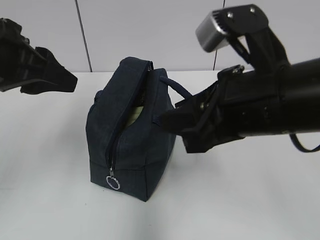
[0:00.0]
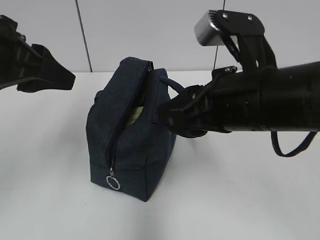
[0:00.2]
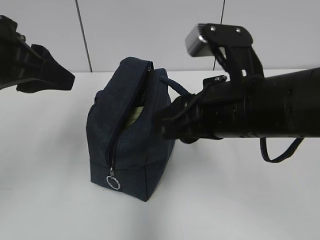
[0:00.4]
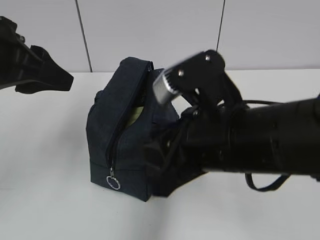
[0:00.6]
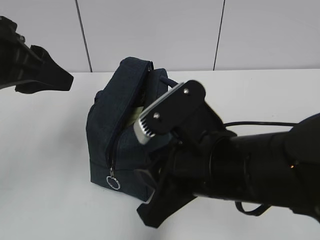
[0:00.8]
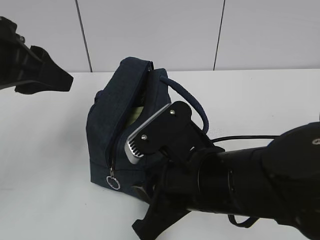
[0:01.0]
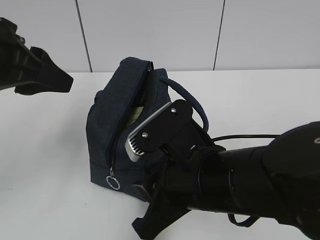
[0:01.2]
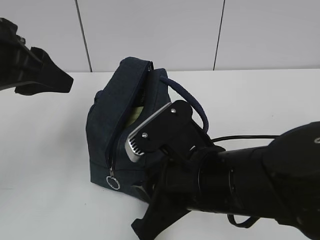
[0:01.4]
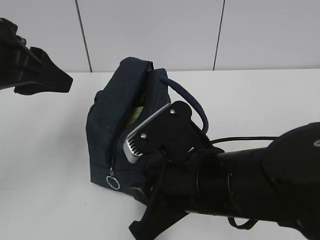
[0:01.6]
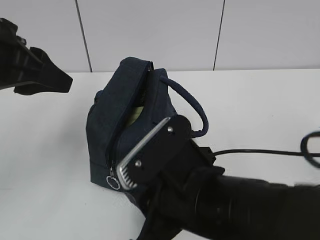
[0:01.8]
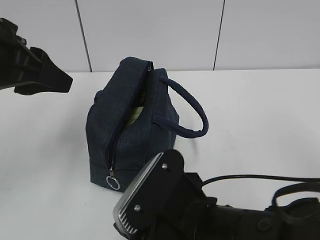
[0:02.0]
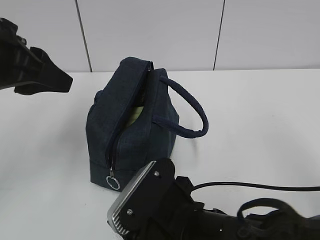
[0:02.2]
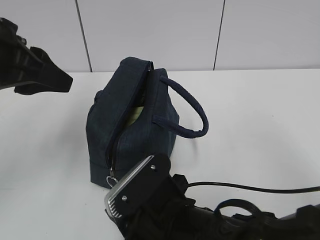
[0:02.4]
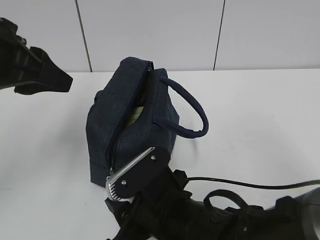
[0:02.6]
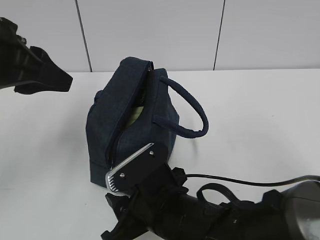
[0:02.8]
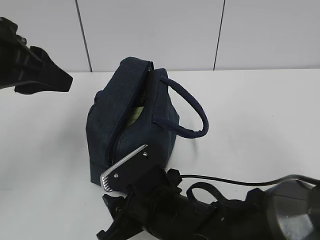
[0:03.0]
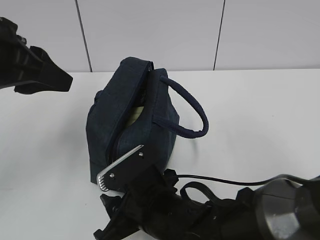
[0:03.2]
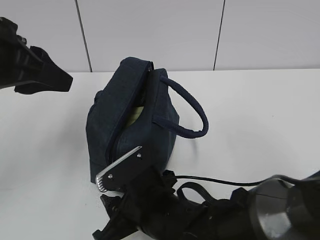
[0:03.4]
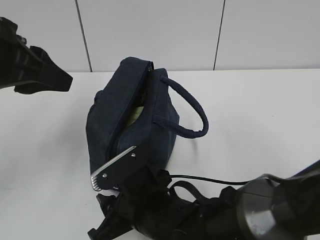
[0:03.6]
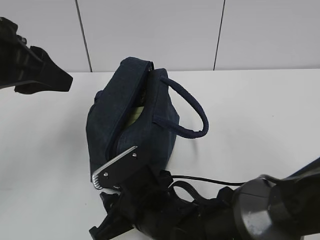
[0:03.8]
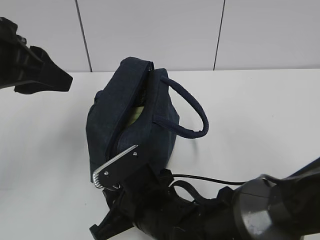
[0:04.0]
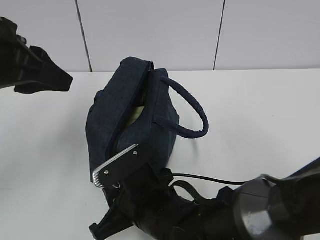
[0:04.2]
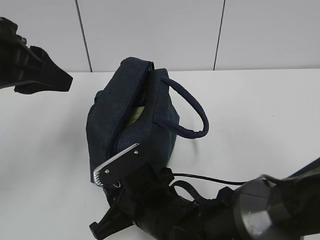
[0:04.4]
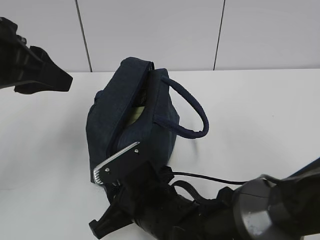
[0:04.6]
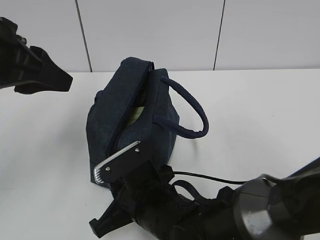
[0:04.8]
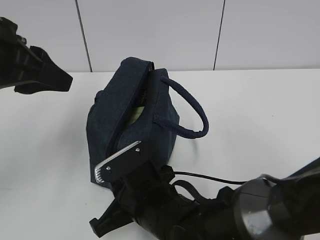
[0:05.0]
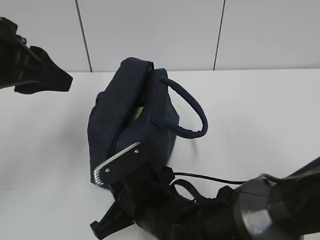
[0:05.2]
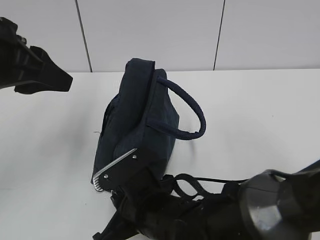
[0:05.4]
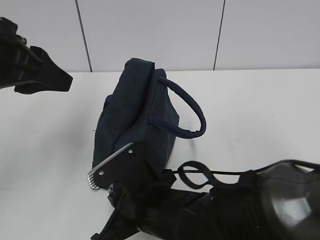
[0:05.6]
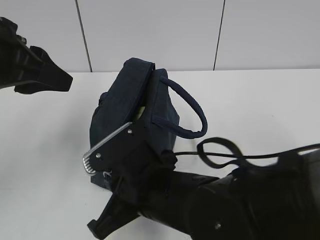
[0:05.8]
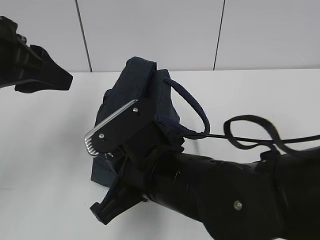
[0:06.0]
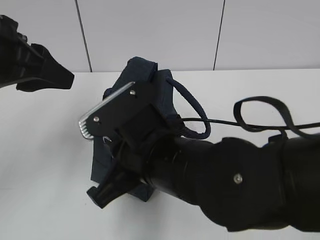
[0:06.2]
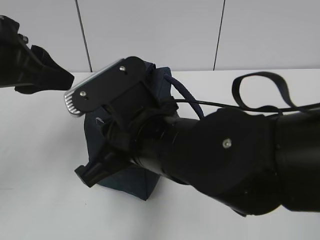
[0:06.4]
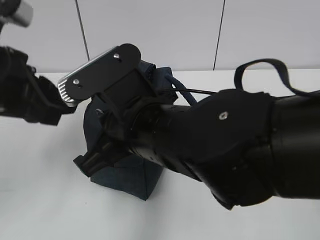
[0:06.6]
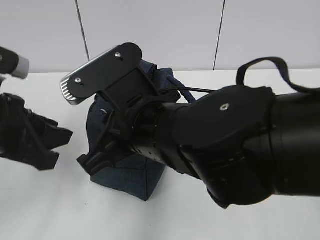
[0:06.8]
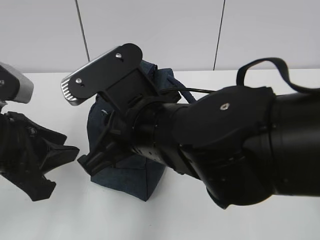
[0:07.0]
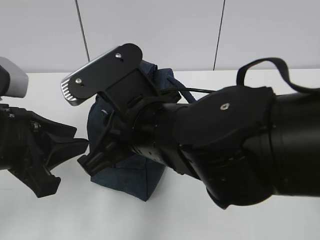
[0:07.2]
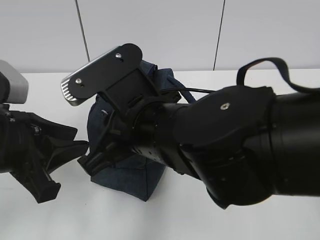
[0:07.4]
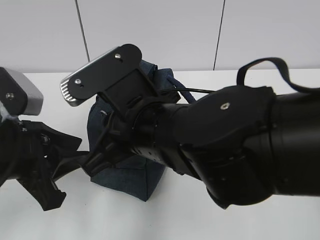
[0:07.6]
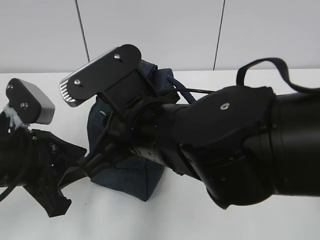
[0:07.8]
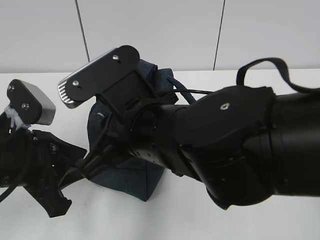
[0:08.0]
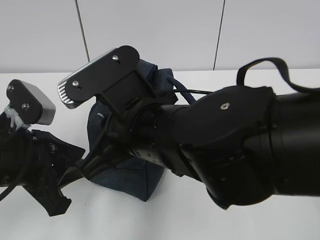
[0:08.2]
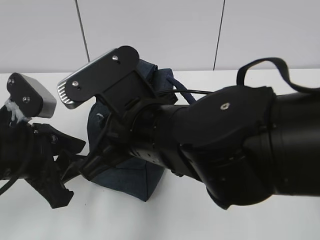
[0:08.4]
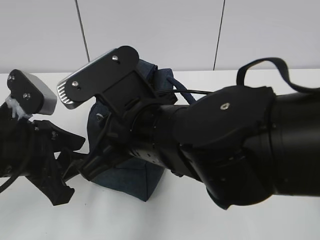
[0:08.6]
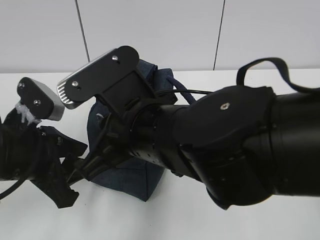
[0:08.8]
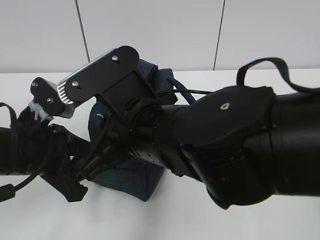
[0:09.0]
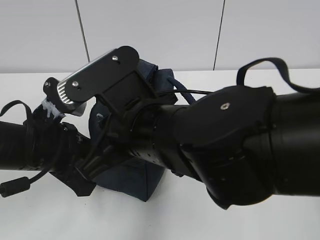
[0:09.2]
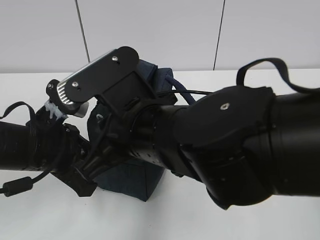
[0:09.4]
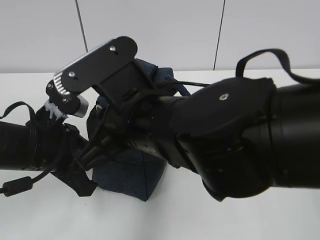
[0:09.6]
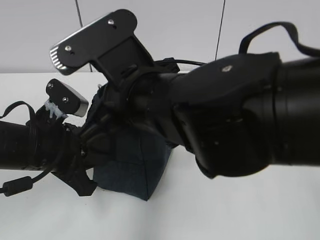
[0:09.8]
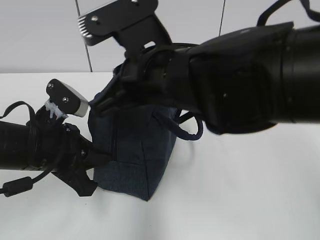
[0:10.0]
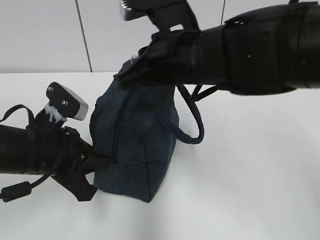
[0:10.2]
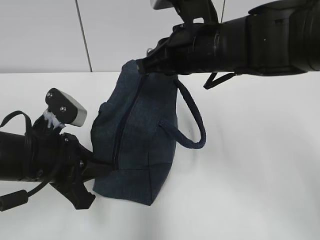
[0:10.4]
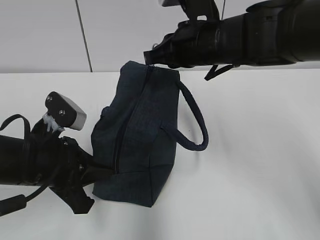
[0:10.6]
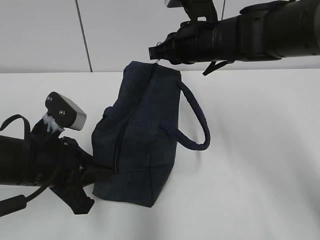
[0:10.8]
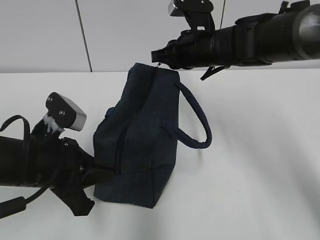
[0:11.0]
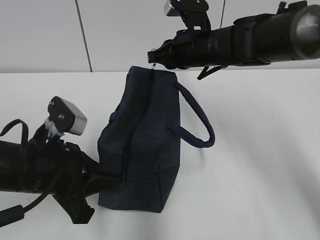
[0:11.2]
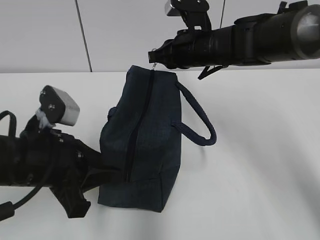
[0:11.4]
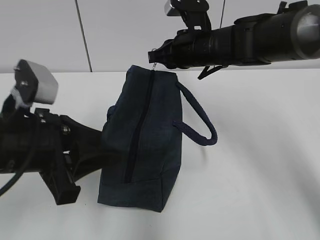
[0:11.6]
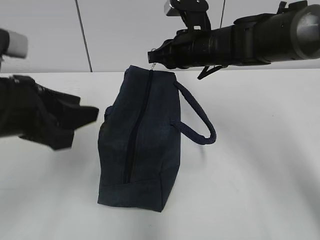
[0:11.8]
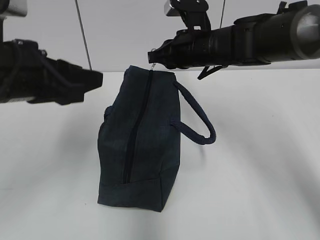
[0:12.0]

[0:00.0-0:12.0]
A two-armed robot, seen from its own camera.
0:00.0 to 0:01.6: The right gripper is displaced downward and to the left by approximately 10 cm.
0:01.6 to 0:03.0: The right gripper heads downward, covering some 10 cm.
0:03.0 to 0:04.4: The grippers make only small movements.
0:04.4 to 0:06.0: The right gripper moves upward, about 10 cm, and closes its fingers.
0:06.0 to 0:07.6: The right gripper shifts by about 5 cm, while the left gripper is displaced downward by approximately 10 cm.
0:07.6 to 0:09.0: The grippers stay close to where they were, moving slightly.
0:09.0 to 0:10.4: The right gripper goes roughly 15 cm forward and to the right. Meanwhile the left gripper closes up.
0:10.4 to 0:12.0: The right gripper heads forward, covering approximately 10 cm. Meanwhile the left gripper travels upward by about 10 cm, and opens.

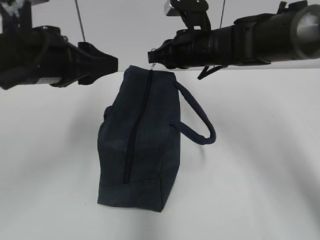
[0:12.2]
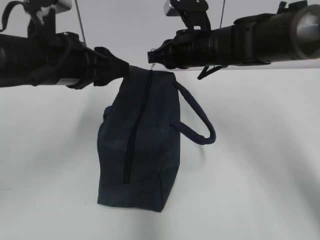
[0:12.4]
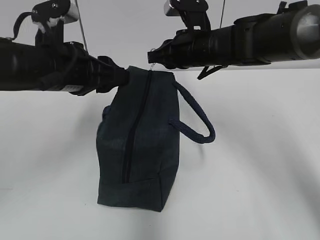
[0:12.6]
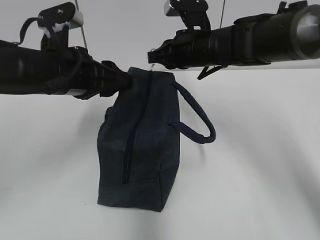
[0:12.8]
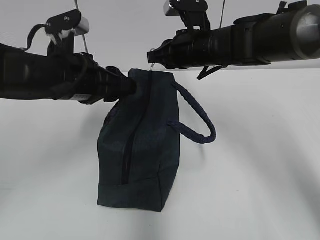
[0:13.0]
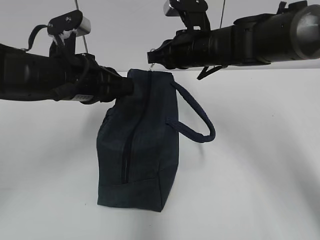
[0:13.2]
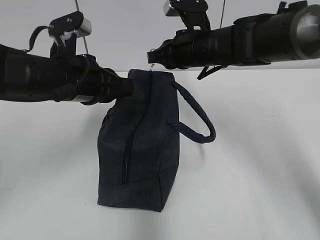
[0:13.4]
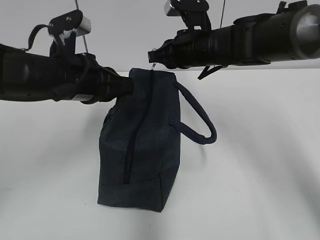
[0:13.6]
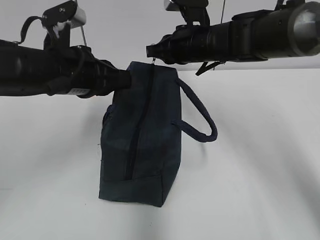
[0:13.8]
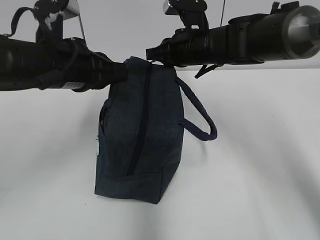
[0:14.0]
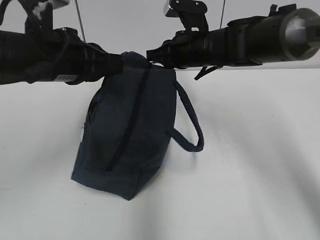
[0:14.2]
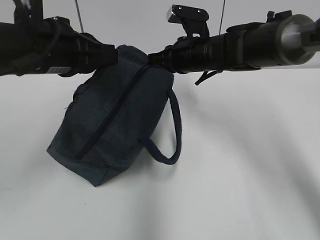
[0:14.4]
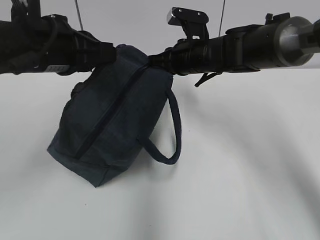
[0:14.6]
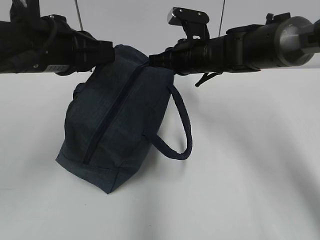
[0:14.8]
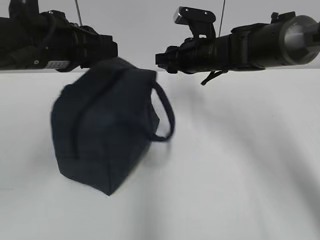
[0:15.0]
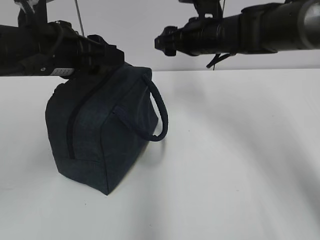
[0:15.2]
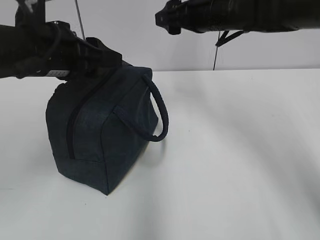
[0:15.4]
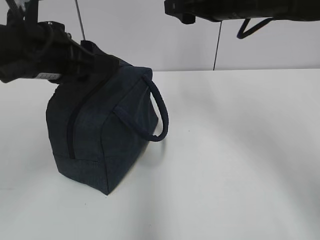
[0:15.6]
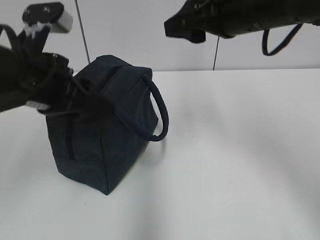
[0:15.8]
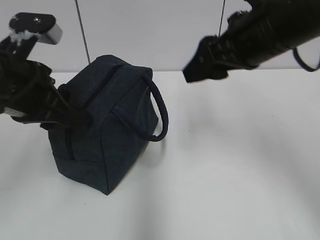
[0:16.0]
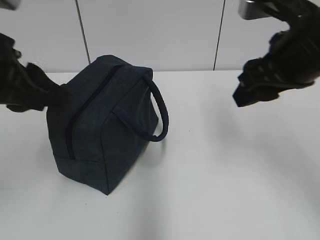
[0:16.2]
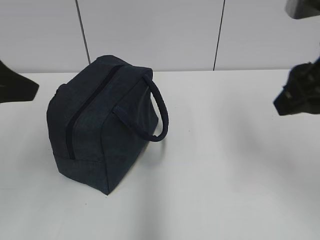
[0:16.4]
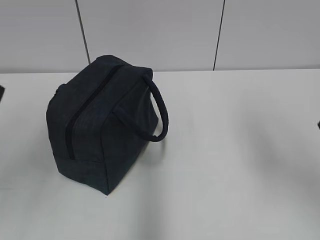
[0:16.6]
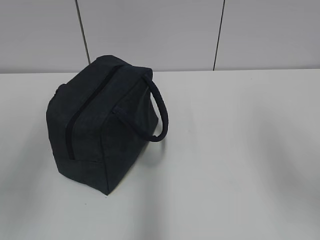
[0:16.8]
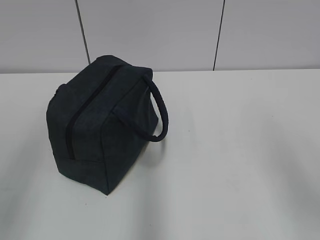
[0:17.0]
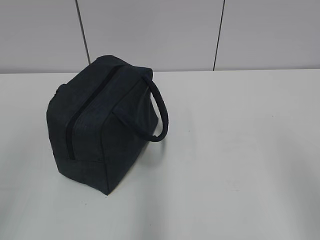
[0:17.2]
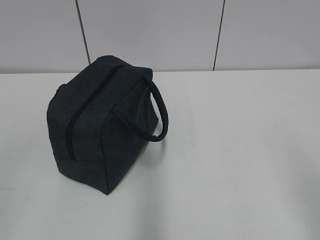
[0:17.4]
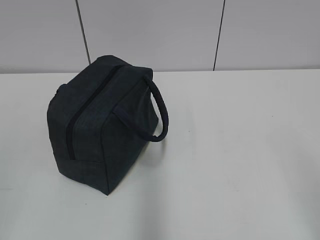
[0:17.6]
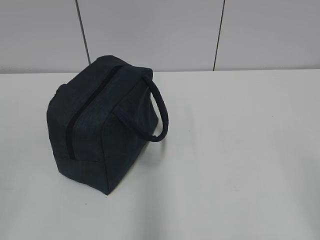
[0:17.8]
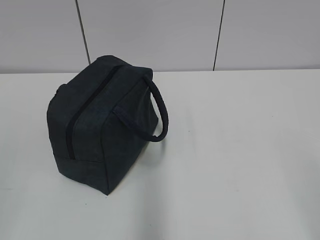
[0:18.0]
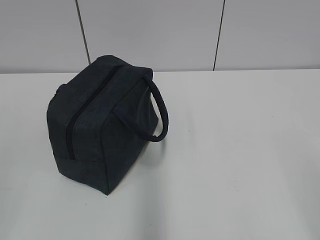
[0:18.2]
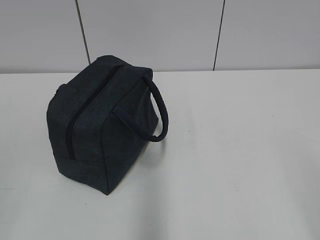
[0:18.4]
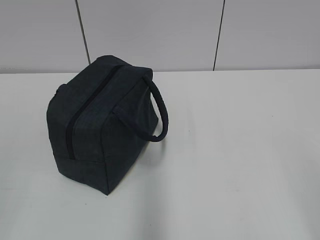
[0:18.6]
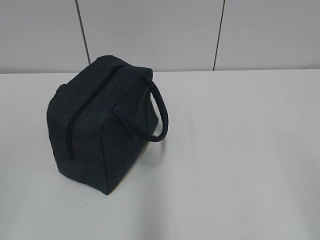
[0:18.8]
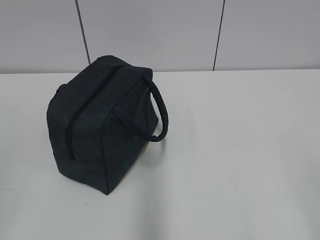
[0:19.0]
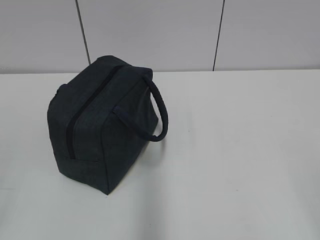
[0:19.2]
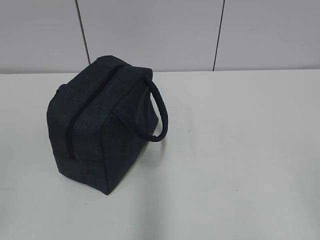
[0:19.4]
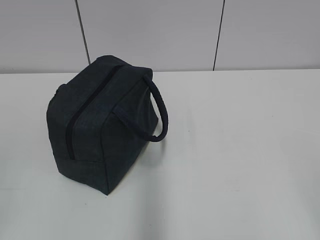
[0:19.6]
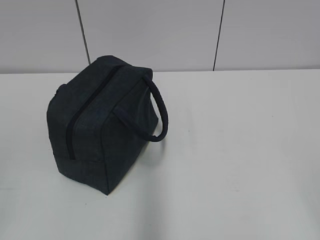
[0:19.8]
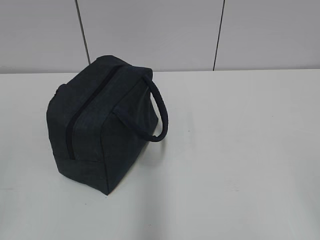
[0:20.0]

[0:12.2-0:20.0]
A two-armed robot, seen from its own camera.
0:12.2 to 0:13.8: The left gripper closes its fingers.
0:13.8 to 0:15.4: The right gripper moves upward, some 5 cm, and opens. Meanwhile the left gripper opens up.
0:15.4 to 0:16.8: The right gripper travels backward and to the right by about 30 cm, while the left gripper travels backward and to the left by some 20 cm.
0:16.8 to 0:18.4: The left gripper heads backward, downward and to the left, covering approximately 15 cm; the right gripper travels backward by some 15 cm.

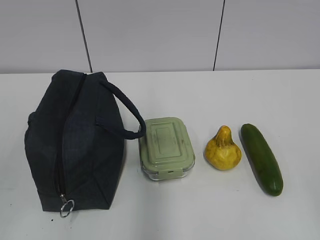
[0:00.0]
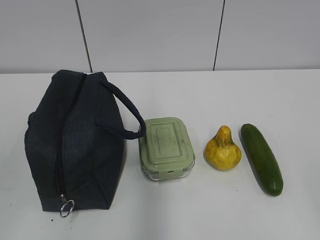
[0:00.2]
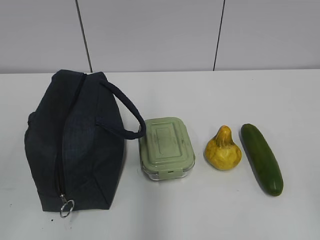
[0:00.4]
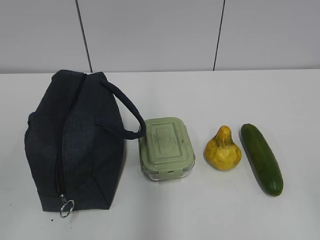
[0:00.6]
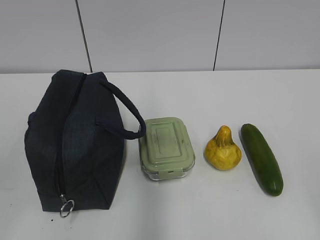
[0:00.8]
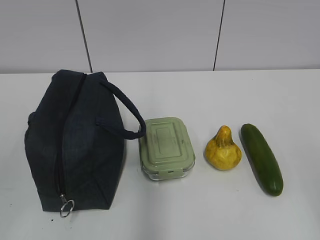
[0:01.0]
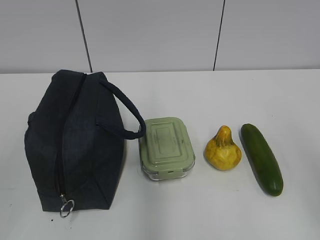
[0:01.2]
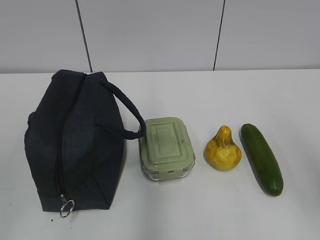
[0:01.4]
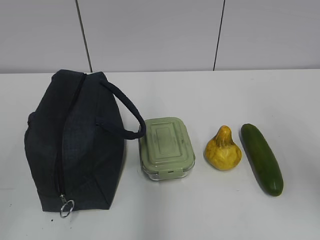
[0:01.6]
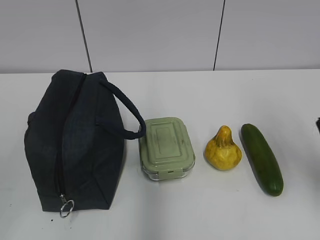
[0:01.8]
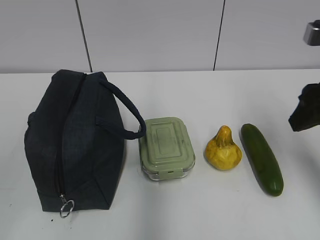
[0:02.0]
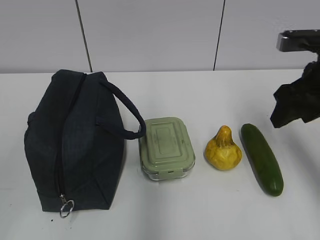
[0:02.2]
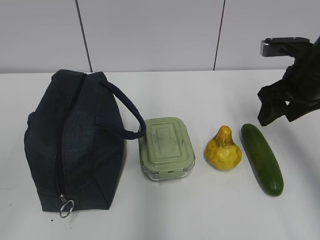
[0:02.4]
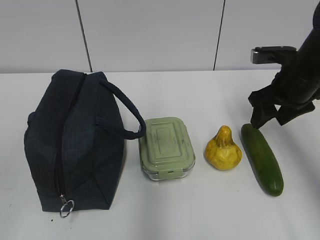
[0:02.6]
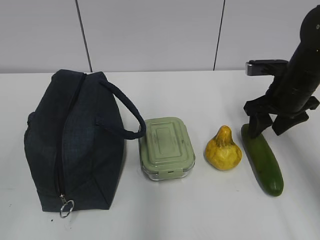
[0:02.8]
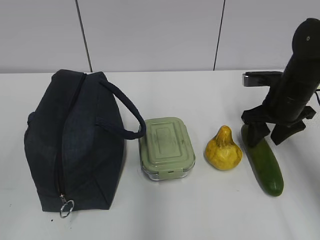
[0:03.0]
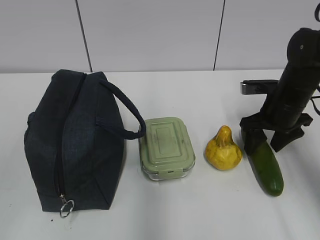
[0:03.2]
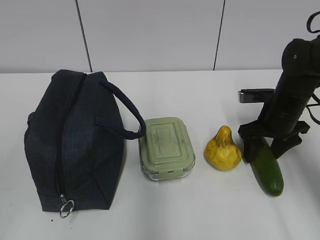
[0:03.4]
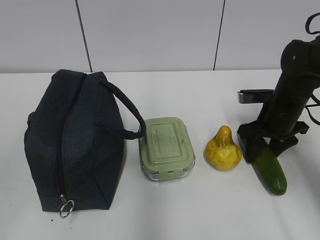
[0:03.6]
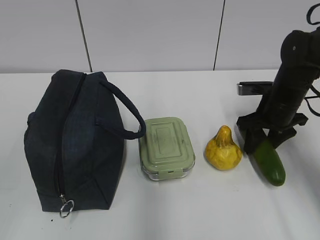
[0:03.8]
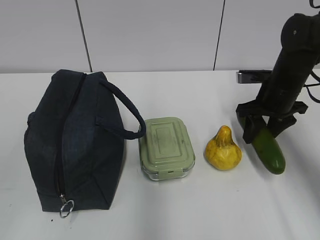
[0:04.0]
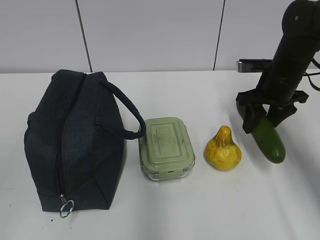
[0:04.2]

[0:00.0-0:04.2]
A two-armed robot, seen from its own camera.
0:01.4 to 0:02.8: The right gripper goes about 30 cm forward and downward.
0:02.8 to 0:04.2: There are only small adjustments of the grippers.
